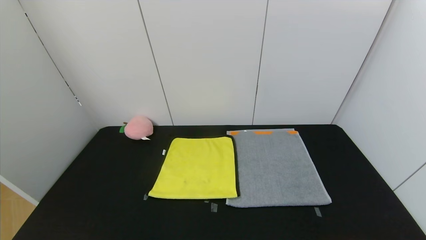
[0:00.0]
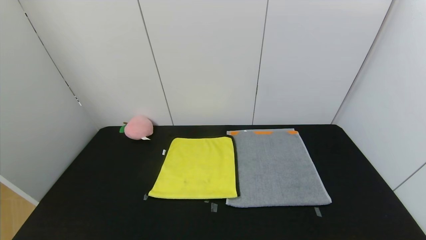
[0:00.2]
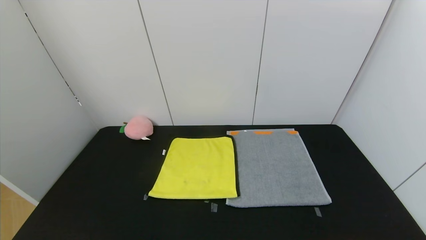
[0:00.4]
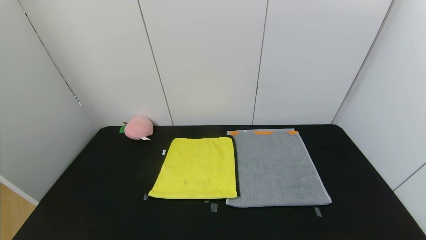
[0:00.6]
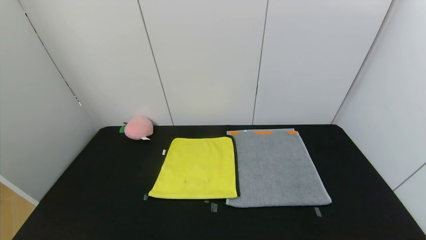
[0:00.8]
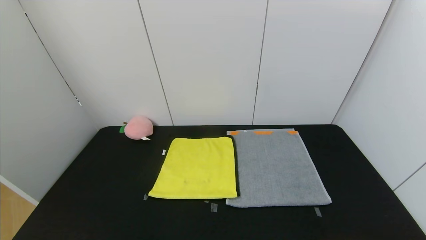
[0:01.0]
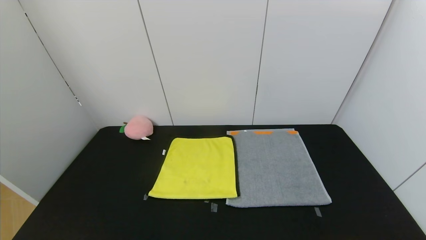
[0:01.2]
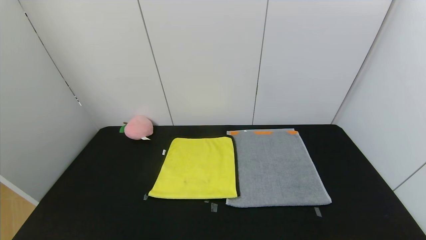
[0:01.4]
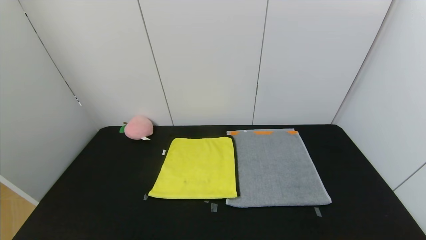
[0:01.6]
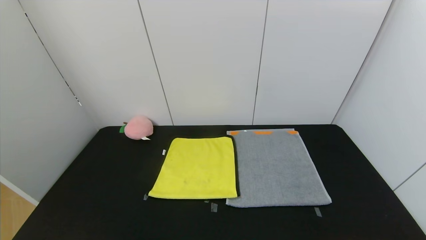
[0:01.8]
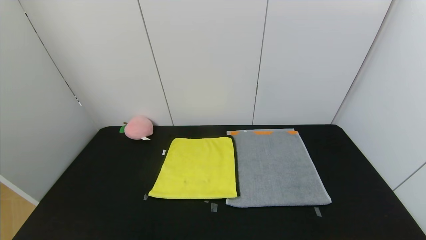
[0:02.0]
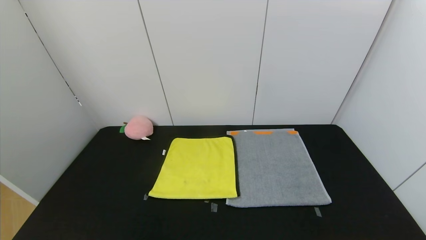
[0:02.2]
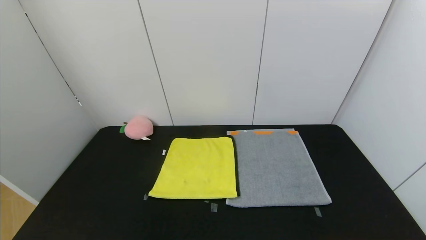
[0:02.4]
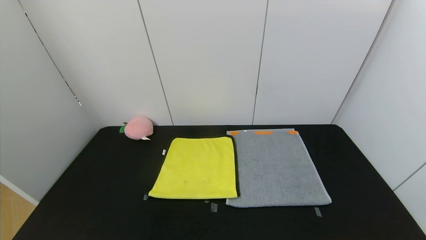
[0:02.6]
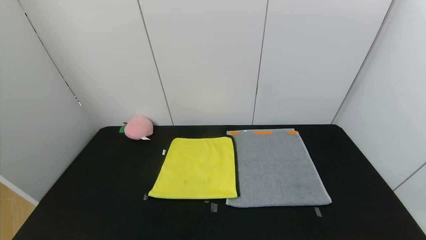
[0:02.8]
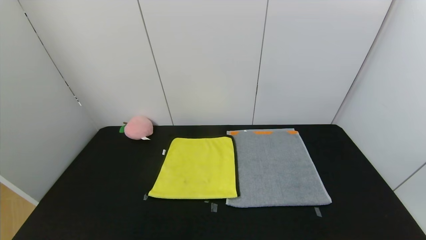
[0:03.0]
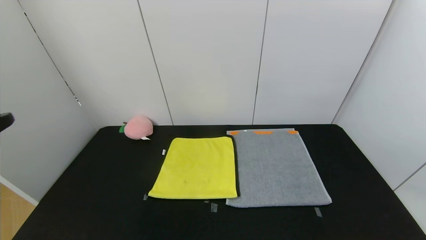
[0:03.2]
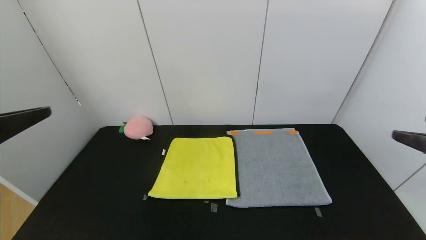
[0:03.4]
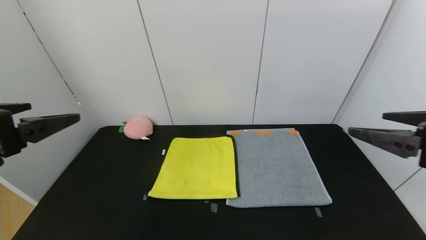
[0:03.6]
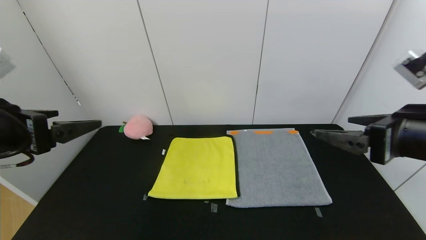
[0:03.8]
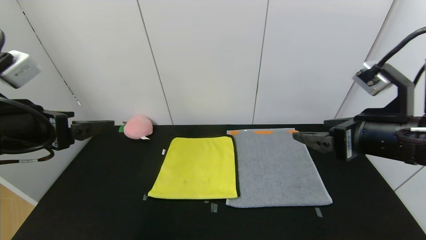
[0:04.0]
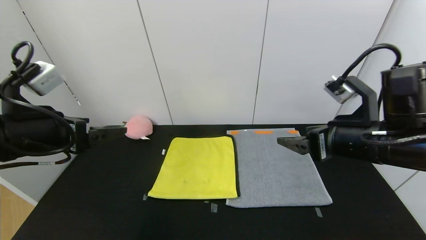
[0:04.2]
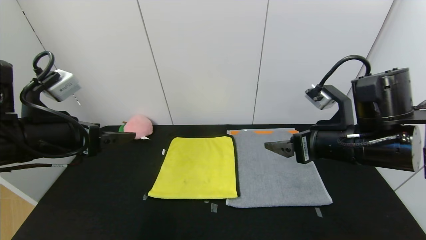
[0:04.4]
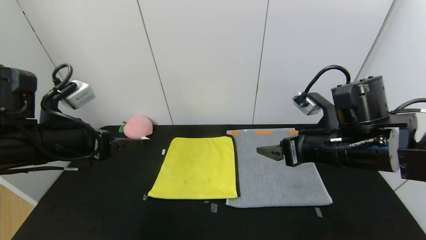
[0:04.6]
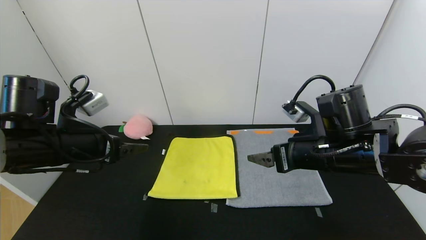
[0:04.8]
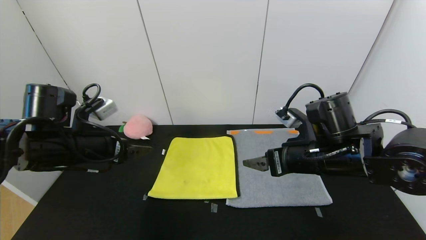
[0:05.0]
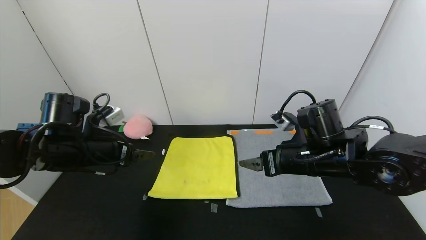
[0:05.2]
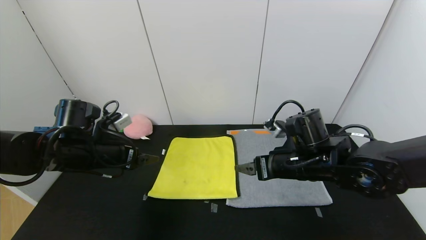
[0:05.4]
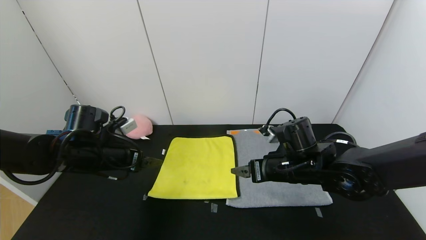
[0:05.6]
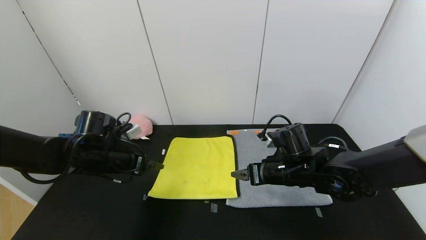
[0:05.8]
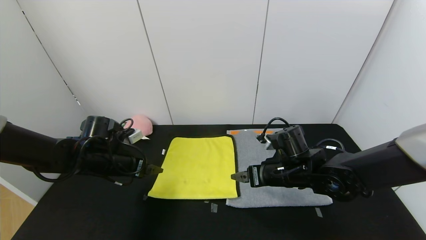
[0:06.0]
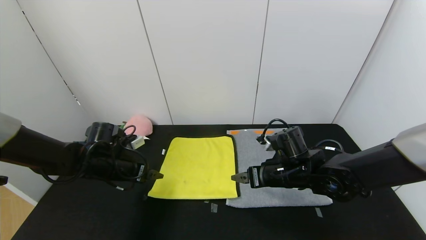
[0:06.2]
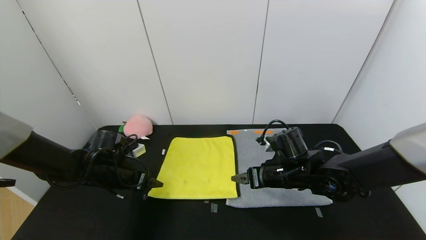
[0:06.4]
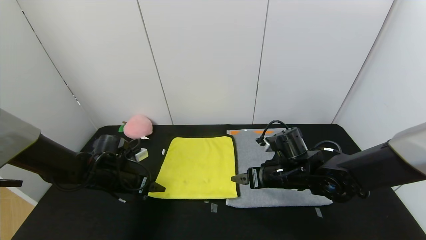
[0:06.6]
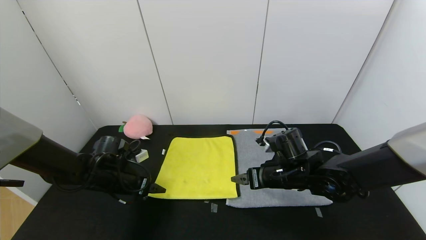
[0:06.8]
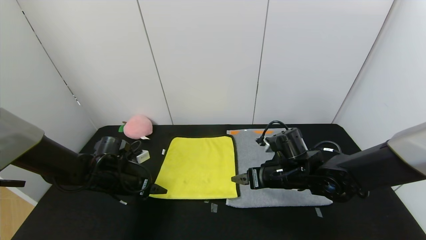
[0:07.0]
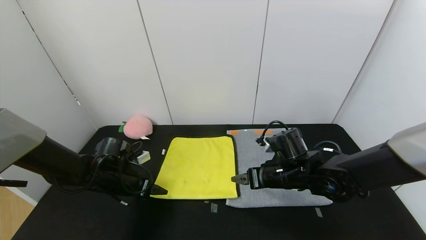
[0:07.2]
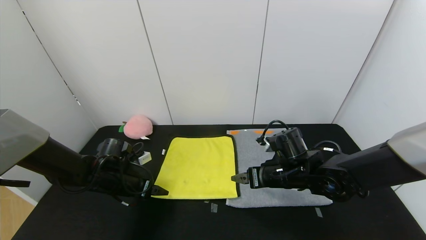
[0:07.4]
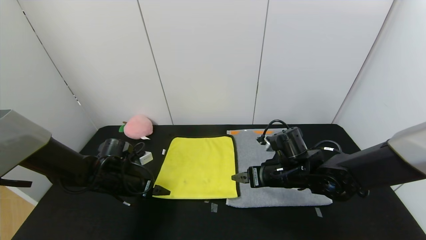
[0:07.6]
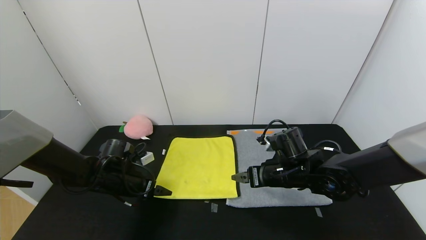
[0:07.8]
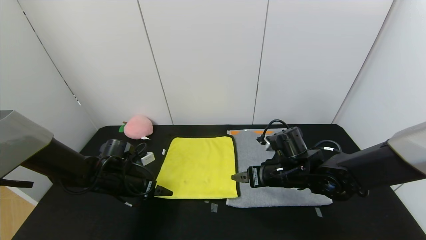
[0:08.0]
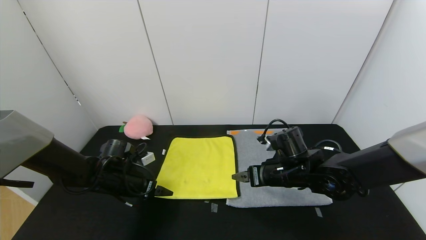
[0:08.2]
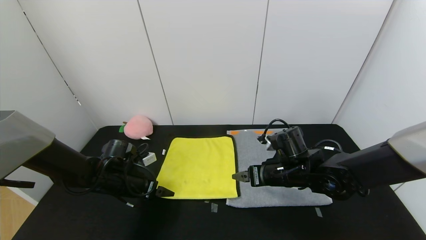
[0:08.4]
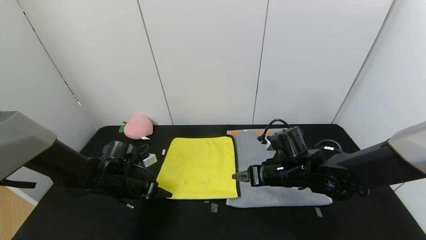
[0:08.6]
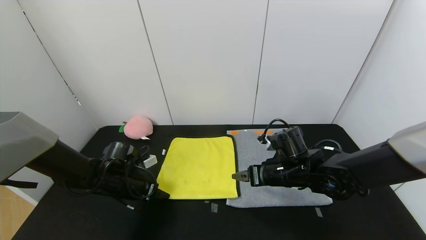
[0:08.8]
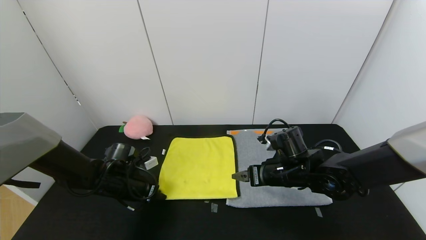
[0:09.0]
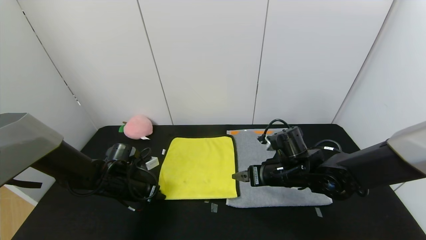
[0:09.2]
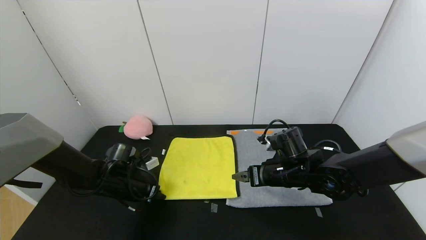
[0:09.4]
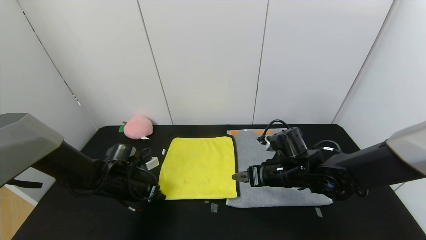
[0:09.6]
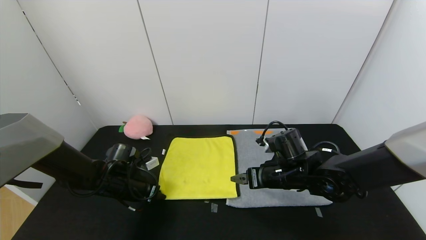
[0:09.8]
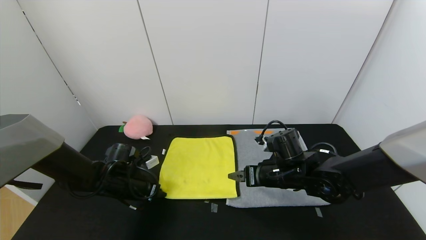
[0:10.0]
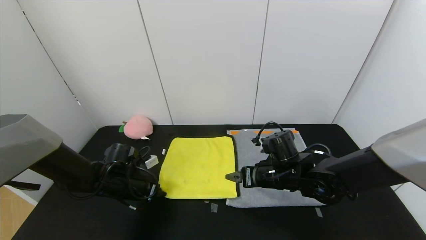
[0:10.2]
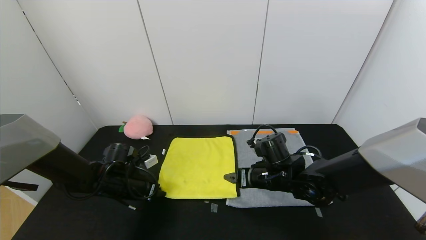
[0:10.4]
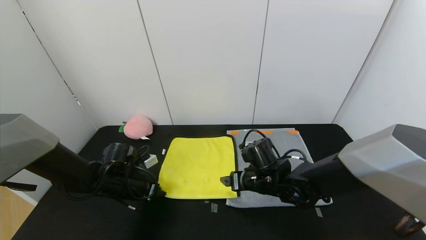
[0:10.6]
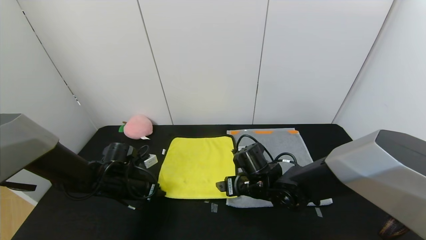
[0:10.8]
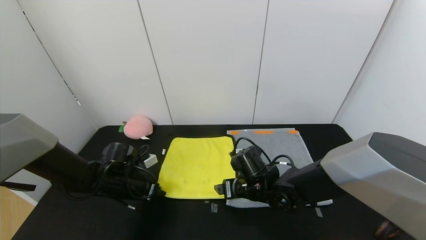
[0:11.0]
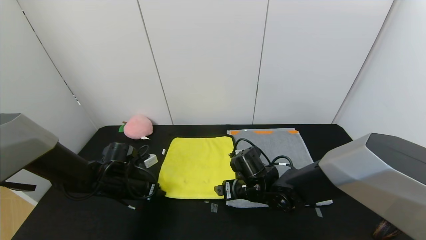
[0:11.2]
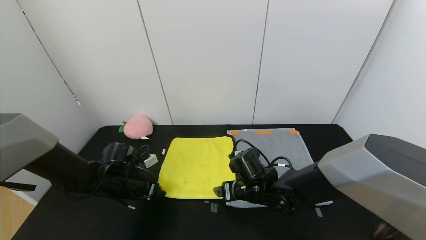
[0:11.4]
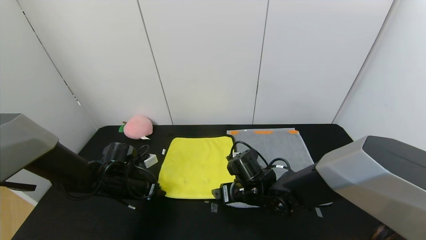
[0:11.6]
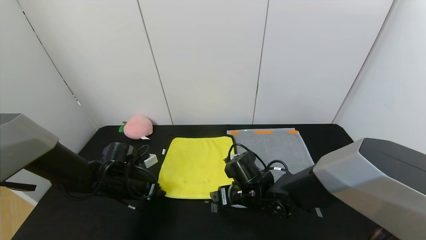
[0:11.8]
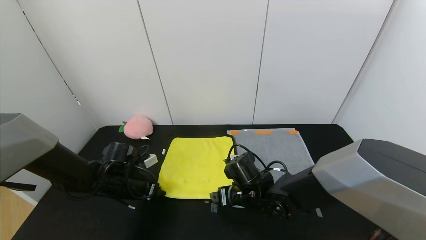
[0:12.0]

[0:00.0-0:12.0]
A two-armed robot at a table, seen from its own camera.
Task of the whole recording: Use the gripper to fold the yellow towel and grey towel in half twice,then put the yellow towel on the grey towel.
0:03.0 to 0:04.4: The right gripper is displaced forward and to the left by roughly 25 cm. The left gripper heads forward, covering about 20 cm.
0:04.4 to 0:06.0: The right gripper goes approximately 15 cm downward, forward and to the left, while the left gripper goes roughly 20 cm downward and forward.
0:06.0 to 0:07.6: The left gripper heads downward, covering some 5 cm.
0:07.6 to 0:09.0: The left gripper closes up.
0:09.0 to 0:10.4: The grippers move only a little.
0:10.4 to 0:12.0: The right gripper moves to the left, roughly 5 cm.

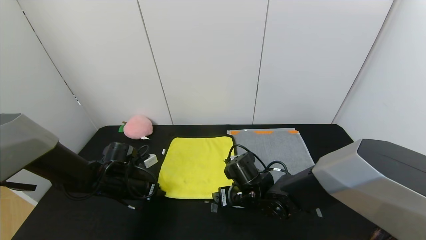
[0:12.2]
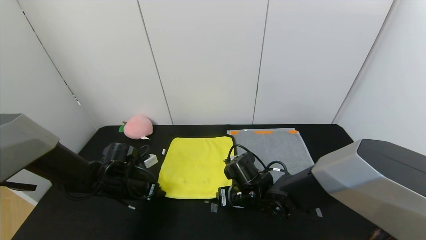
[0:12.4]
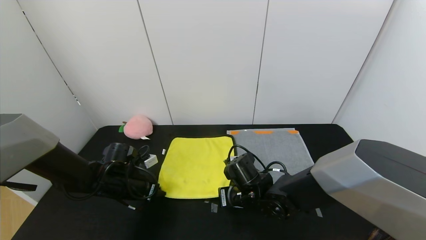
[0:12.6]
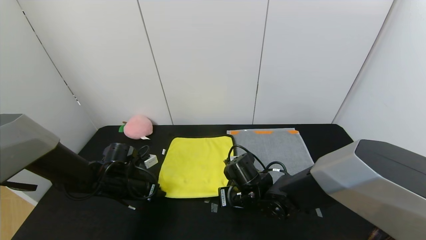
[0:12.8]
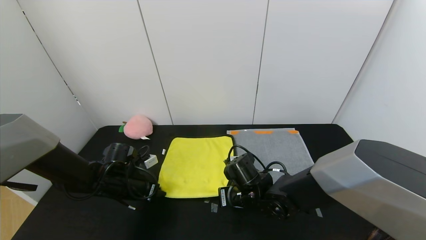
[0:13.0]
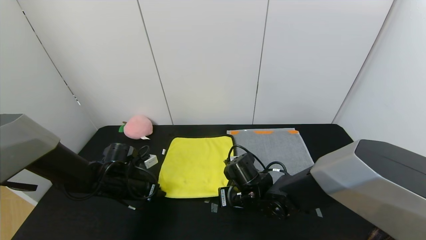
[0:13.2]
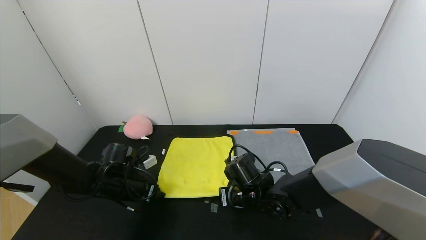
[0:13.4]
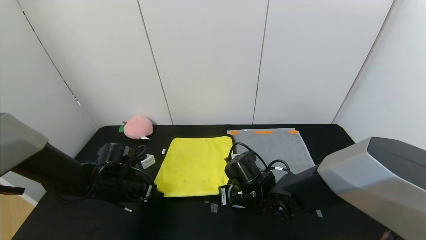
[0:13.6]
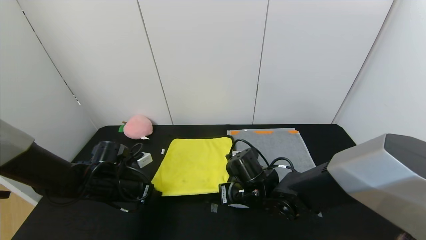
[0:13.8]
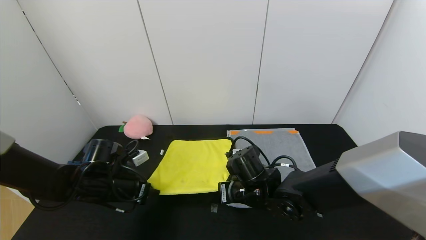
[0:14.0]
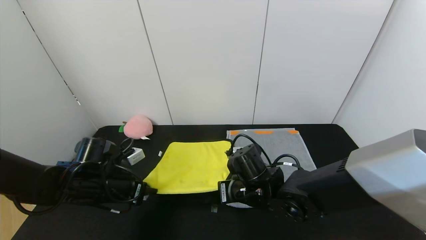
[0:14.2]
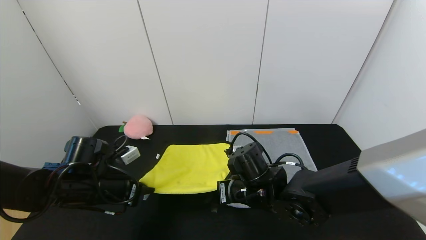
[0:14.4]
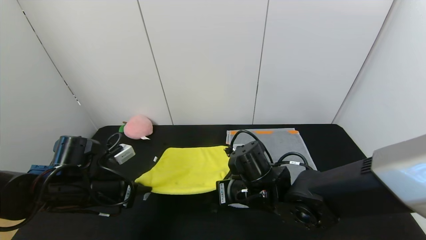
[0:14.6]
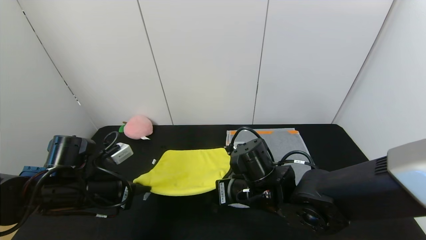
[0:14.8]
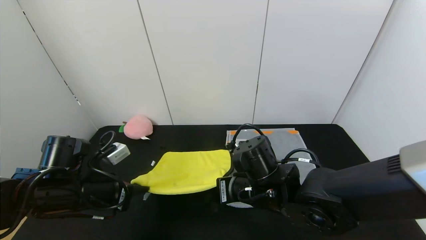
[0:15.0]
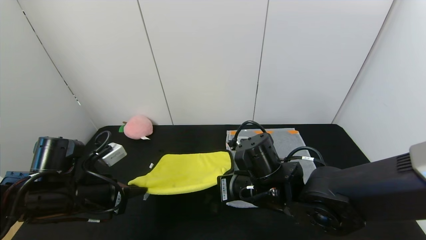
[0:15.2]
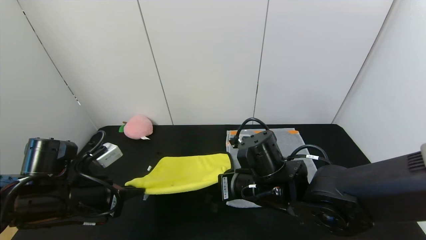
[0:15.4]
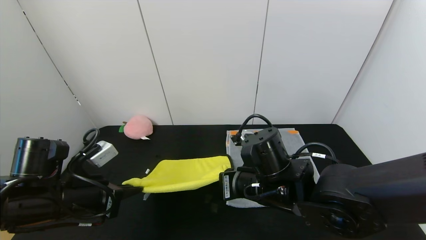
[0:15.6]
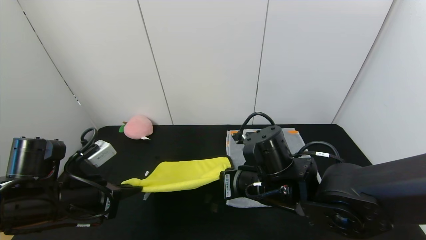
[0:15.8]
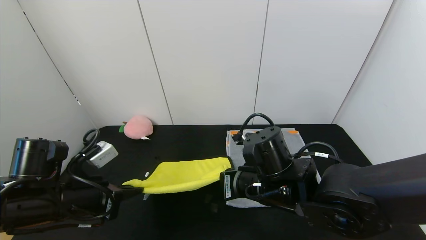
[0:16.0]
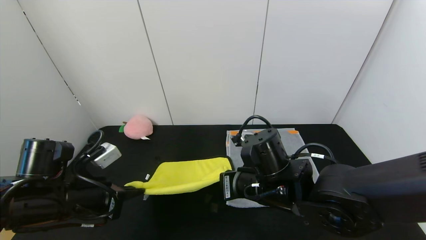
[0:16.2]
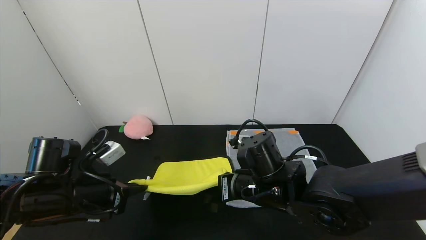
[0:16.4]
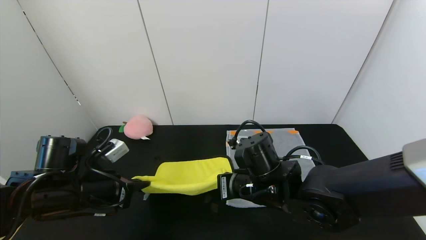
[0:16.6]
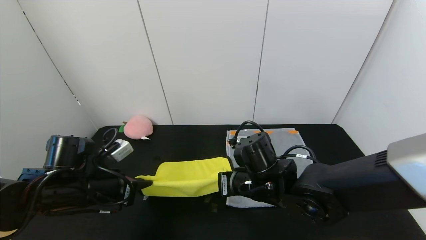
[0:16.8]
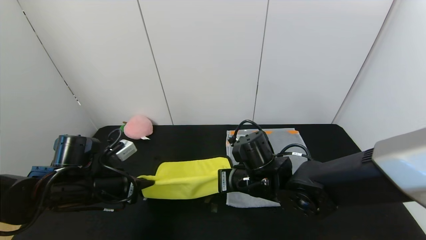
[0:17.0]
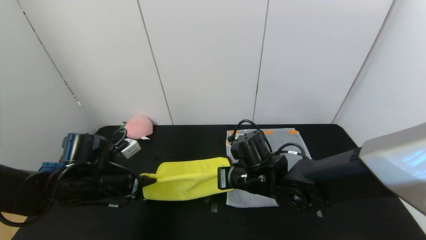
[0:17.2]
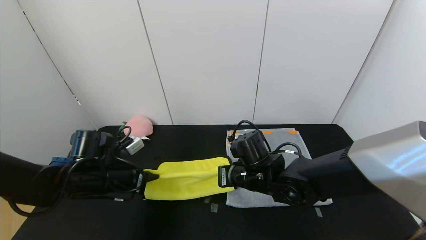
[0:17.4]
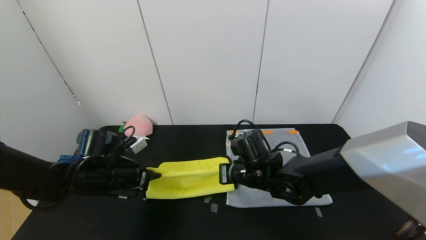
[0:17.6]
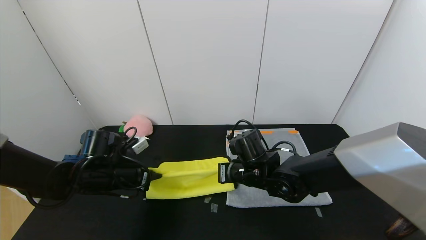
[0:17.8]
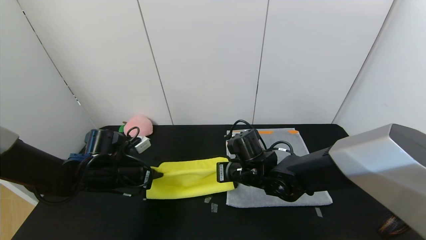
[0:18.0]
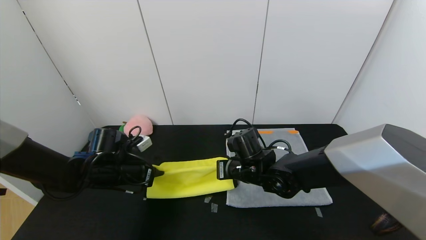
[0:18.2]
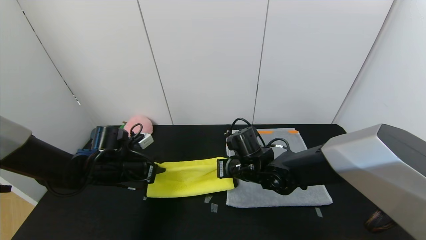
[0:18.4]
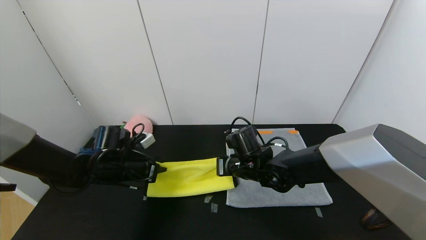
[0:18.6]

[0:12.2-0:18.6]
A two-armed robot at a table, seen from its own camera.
Task of the whole recording: Use the gripper to fold the yellow towel and grey towel in half twice,then put the yellow towel on the grey towel.
0:12.2 to 0:13.8: The right gripper closes.
0:13.8 to 0:15.4: The right gripper travels upward by approximately 5 cm. Meanwhile the left gripper travels backward and upward by some 10 cm.
0:15.4 to 0:17.0: The grippers make only small movements.
0:17.0 to 0:18.6: Both grippers travel together forward, roughly 5 cm.
